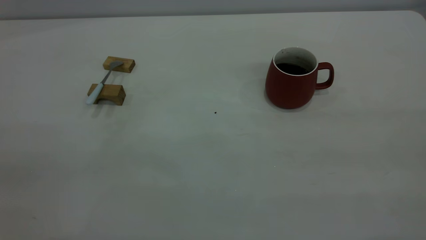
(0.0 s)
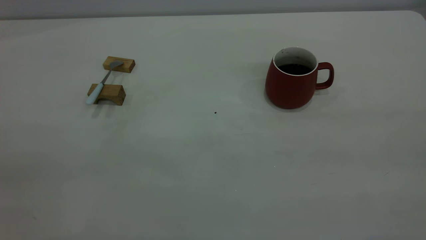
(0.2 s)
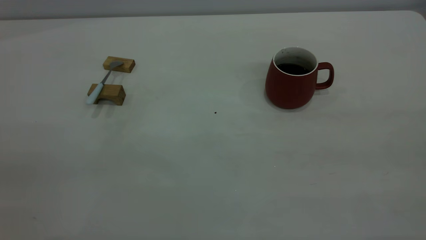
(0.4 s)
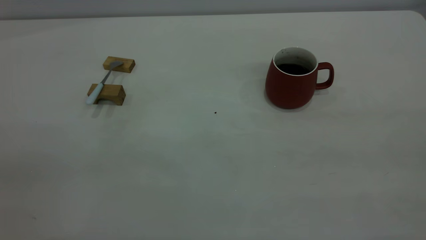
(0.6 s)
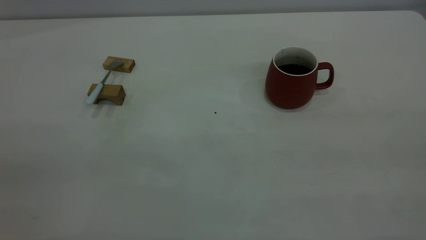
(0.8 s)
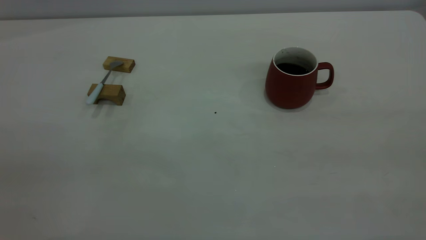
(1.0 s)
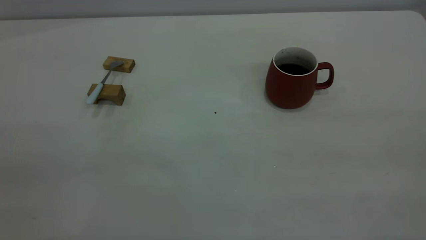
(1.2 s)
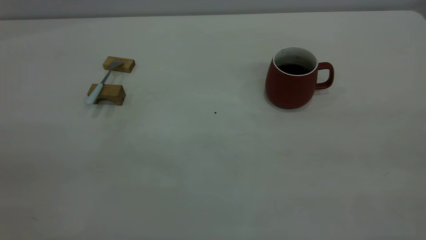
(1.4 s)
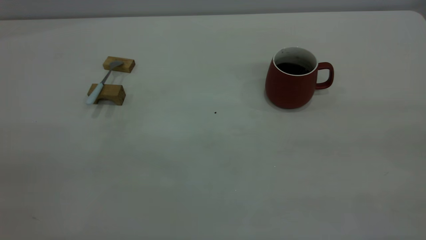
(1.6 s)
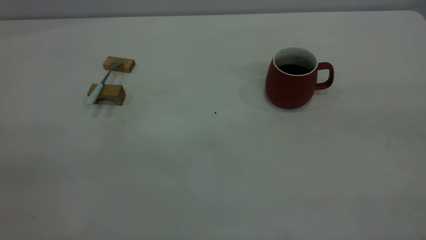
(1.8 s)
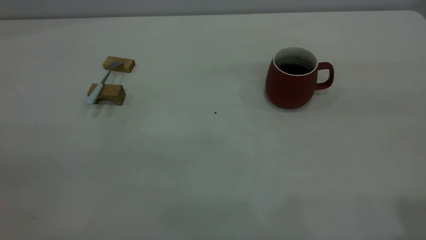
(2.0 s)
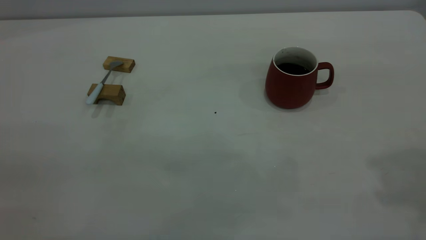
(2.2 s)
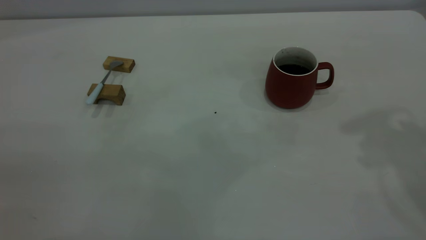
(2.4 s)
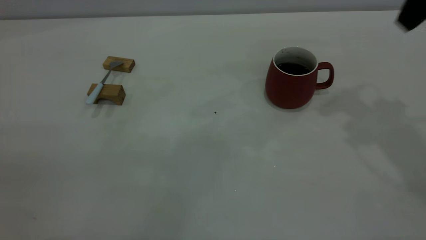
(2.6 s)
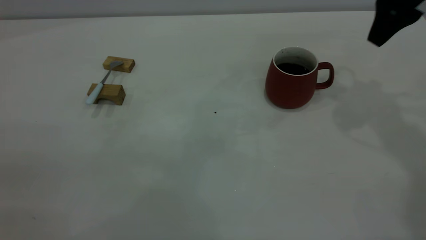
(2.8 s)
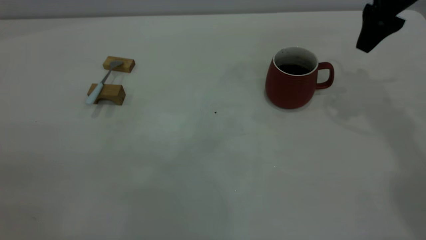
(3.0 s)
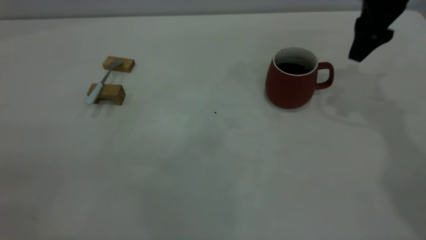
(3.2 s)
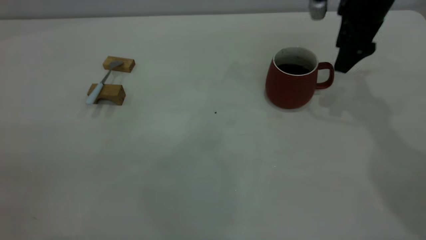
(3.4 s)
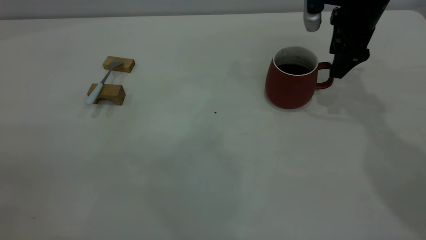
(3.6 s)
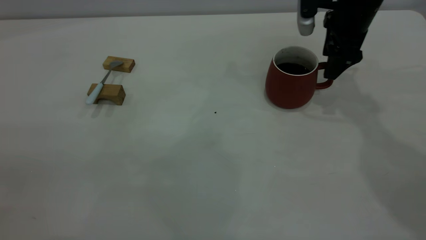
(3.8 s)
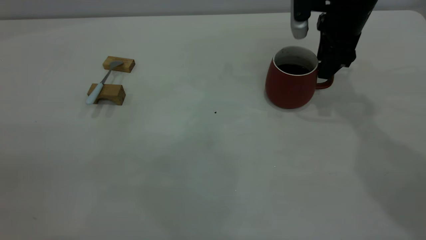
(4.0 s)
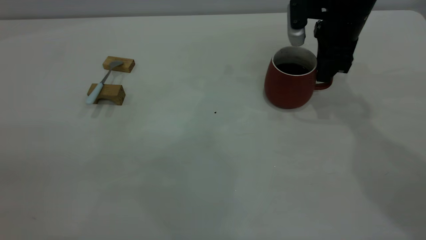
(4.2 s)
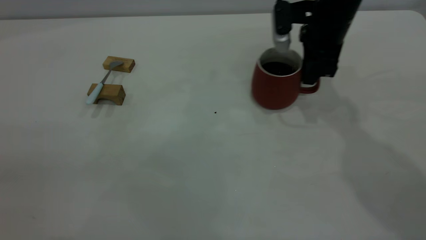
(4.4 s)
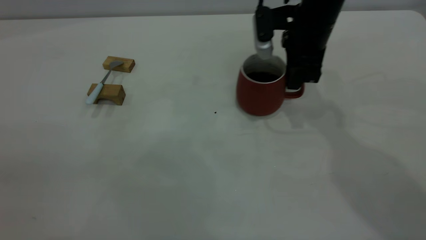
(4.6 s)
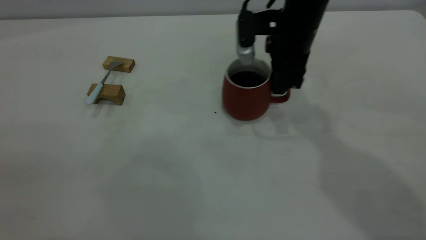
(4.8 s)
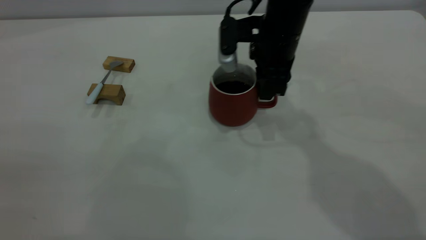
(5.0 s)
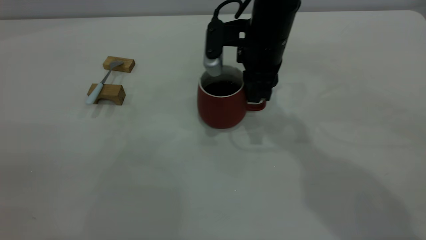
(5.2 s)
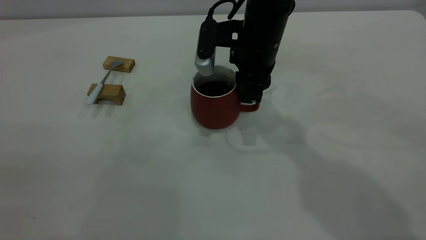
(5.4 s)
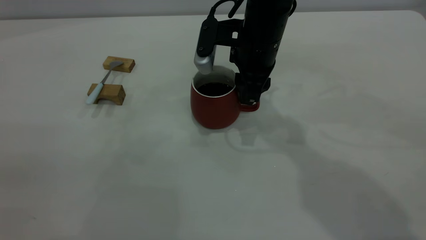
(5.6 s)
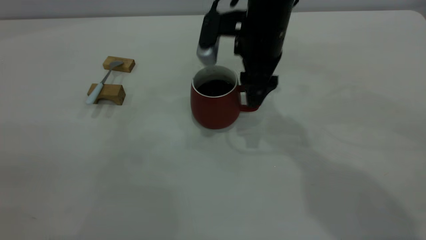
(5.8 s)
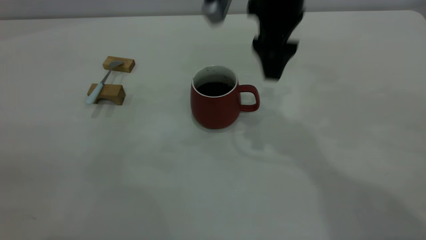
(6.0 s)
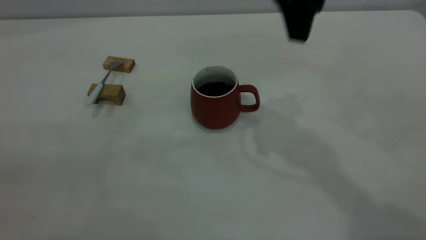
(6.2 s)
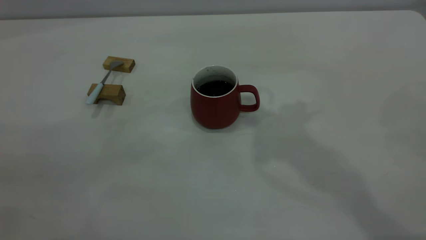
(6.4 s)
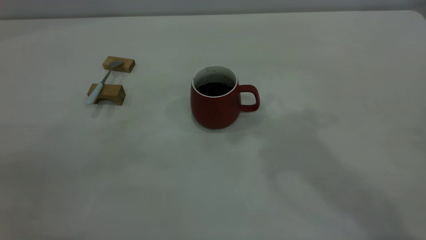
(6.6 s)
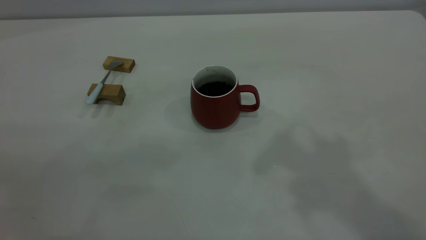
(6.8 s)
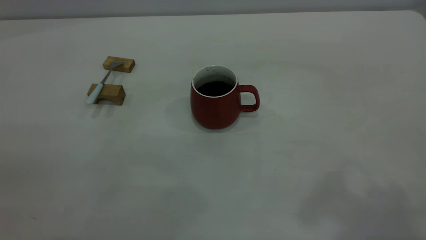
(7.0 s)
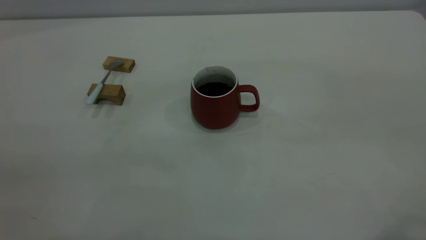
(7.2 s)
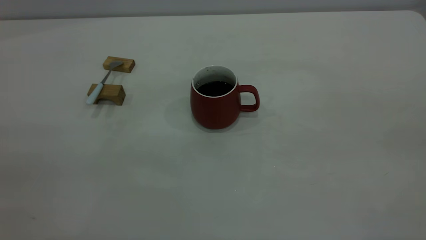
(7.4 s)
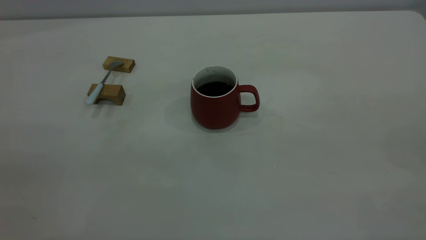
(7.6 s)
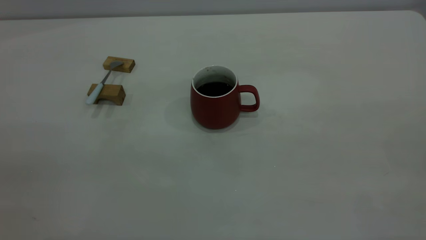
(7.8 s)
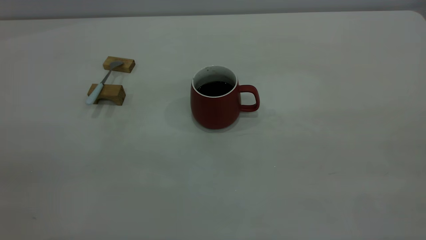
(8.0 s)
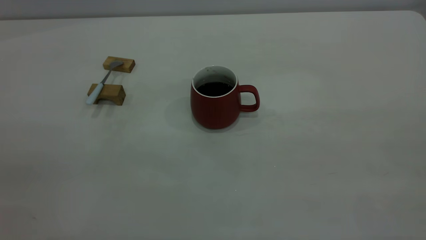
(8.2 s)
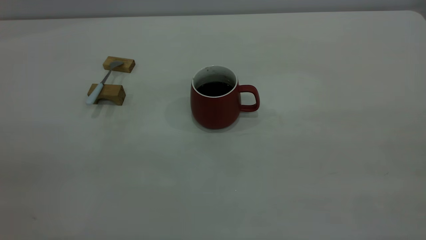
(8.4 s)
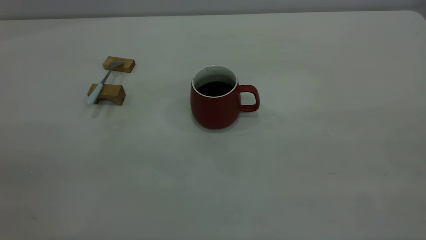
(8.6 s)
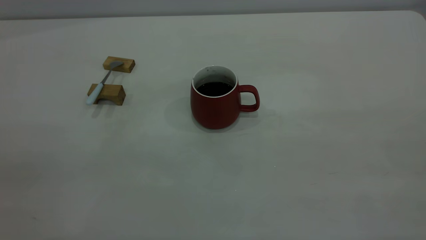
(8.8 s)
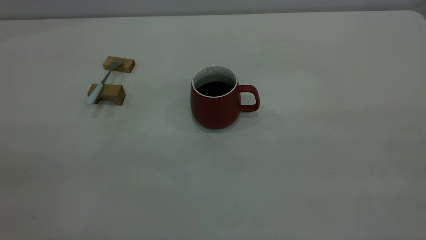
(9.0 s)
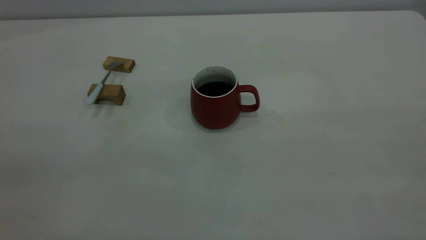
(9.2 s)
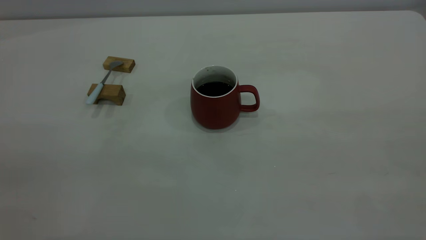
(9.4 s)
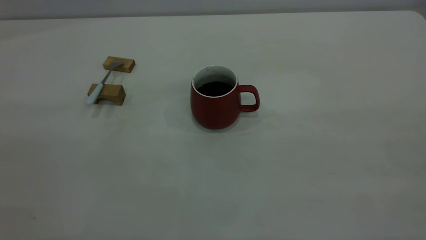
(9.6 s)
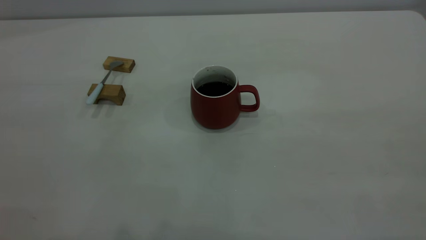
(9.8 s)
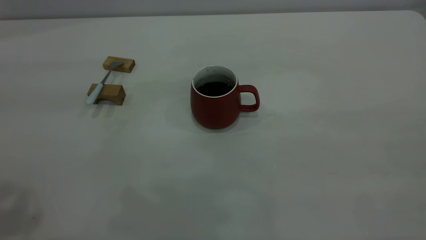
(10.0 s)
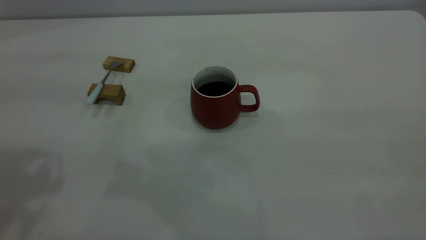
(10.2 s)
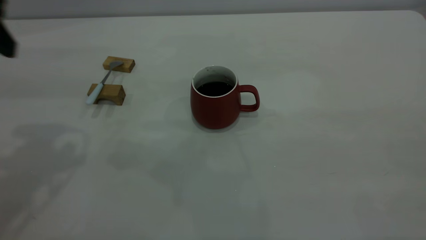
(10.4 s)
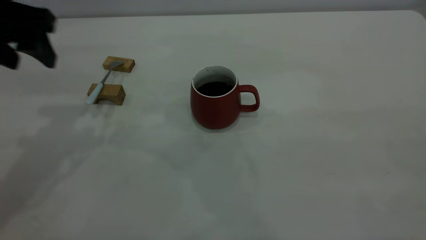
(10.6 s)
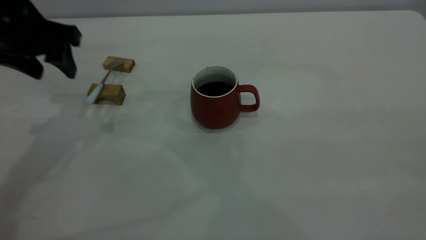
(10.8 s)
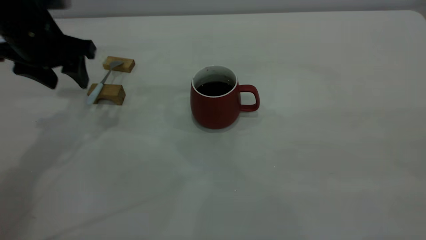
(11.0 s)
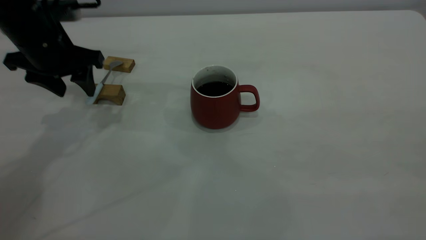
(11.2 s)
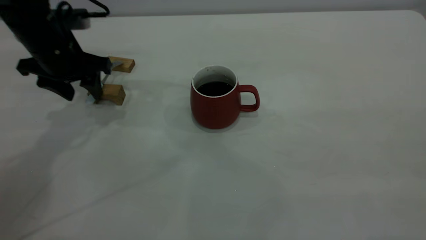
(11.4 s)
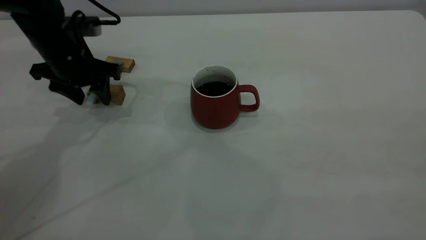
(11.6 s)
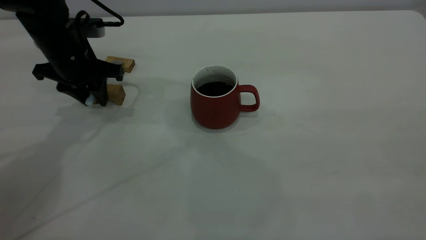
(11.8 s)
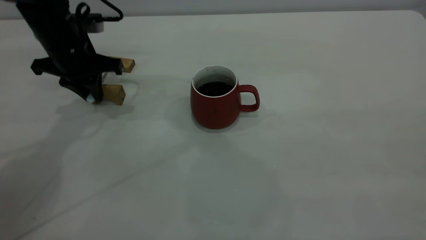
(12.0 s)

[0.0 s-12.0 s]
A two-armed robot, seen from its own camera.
Step, 0.0 to 5.8 s: Move the cup with coffee to the center of view.
1.6 to 3.0 s: The right gripper travels forward by roughly 40 cm.
3.0 to 4.4 s: The right gripper goes approximately 10 cm to the left and downward, and closes.
4.4 to 6.0 s: The right gripper shifts roughly 15 cm upward, to the left and backward, and opens its fingers.
6.0 to 7.6 s: The right gripper shifts some 40 cm backward and to the right.
10.4 to 12.0 s: The left gripper shifts approximately 20 cm downward and forward, and closes up.

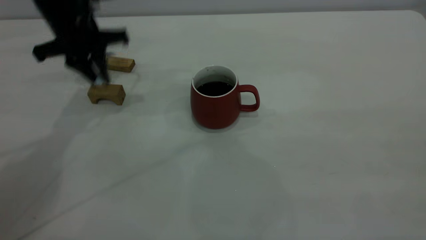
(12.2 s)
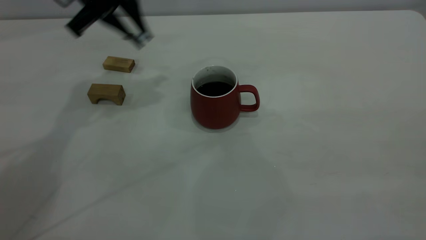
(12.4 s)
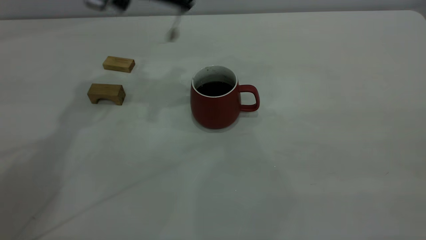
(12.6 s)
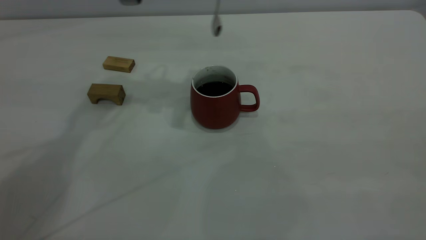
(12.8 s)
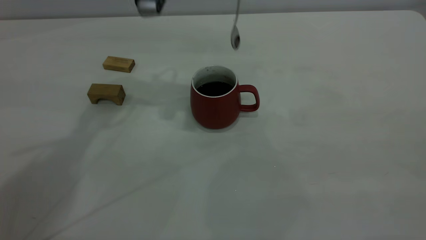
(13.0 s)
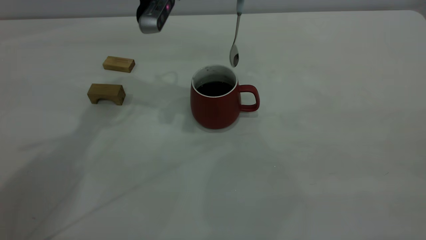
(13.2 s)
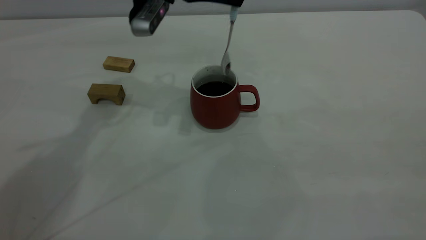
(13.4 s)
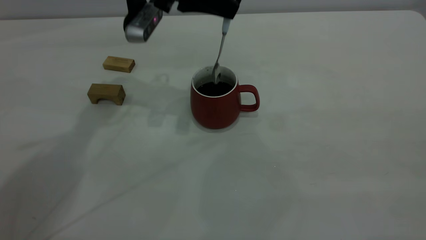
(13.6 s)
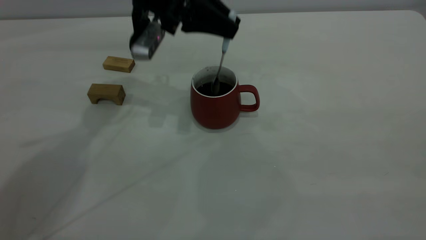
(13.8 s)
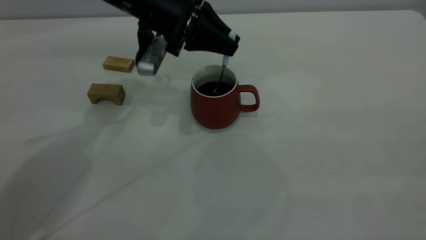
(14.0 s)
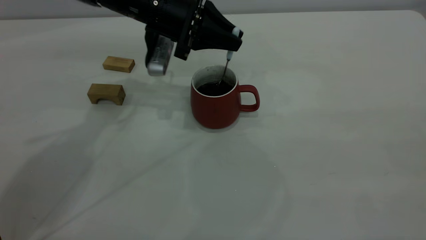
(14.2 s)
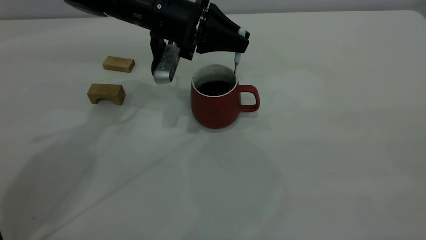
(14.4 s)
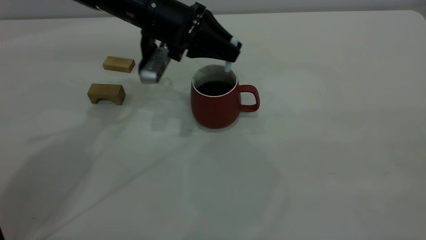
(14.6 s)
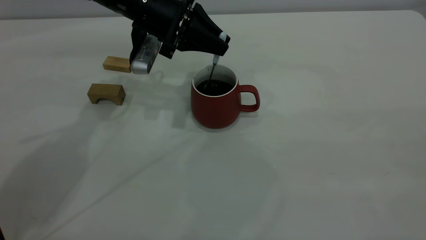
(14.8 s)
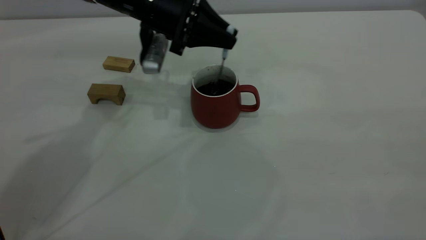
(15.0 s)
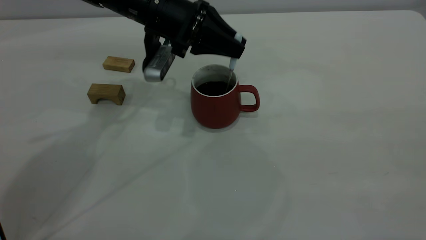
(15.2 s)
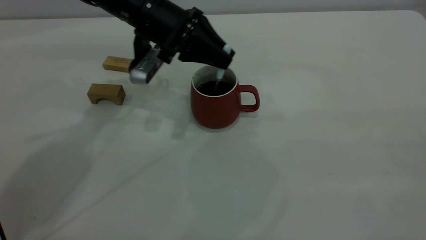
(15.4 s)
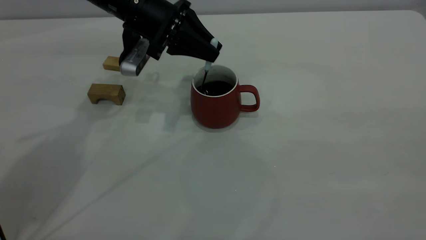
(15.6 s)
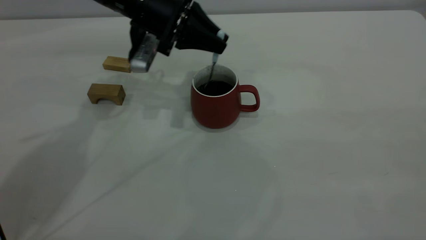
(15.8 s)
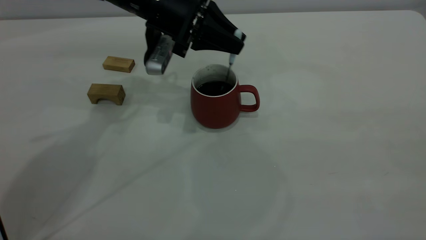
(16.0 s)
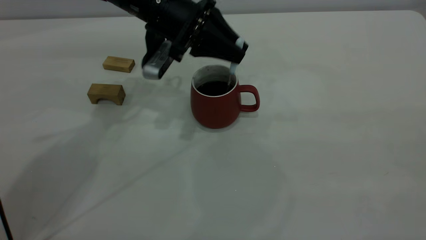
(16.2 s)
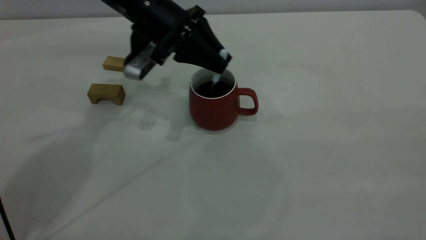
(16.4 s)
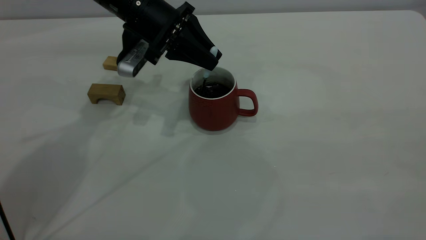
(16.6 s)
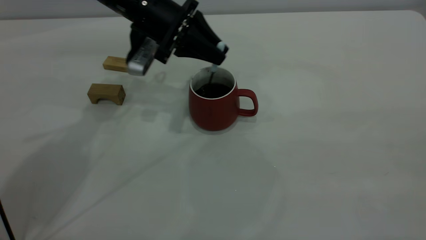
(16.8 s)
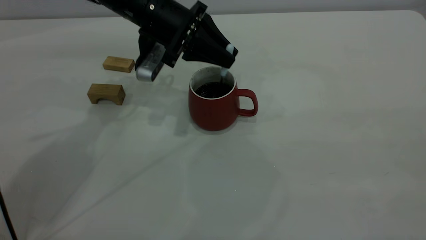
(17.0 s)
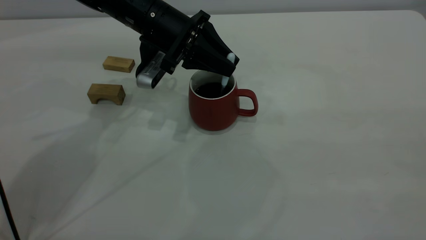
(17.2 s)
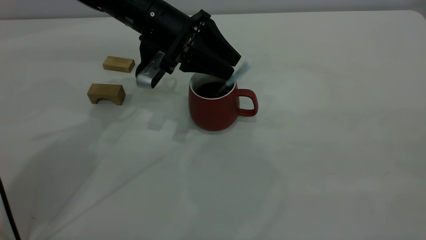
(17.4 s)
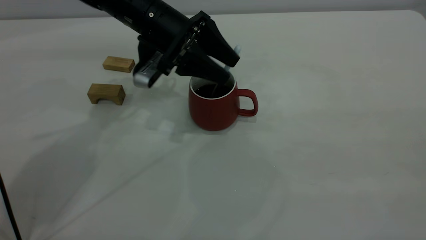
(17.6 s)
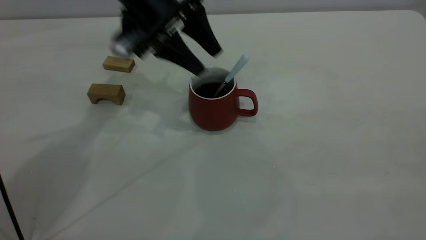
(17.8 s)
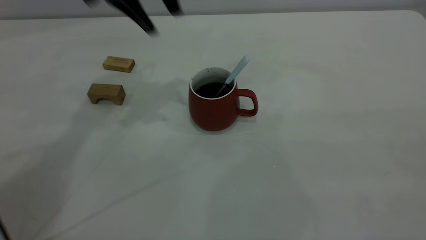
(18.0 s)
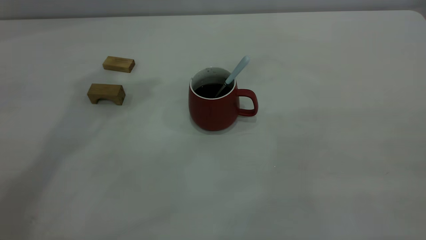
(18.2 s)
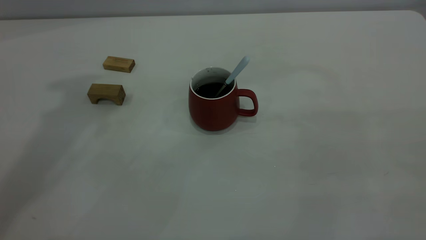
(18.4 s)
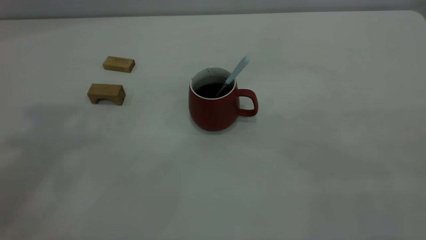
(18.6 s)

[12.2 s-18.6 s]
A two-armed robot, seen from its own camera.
Step, 12.4 to 17.8 s: Stir the coffee in the cup.
12.2 to 13.8 s: The left gripper moves to the right, about 10 cm.
13.8 to 17.0 s: The grippers stay close to where they were, moving slightly.
17.0 to 18.6 s: The left gripper is displaced upward by some 40 cm, and opens up.
